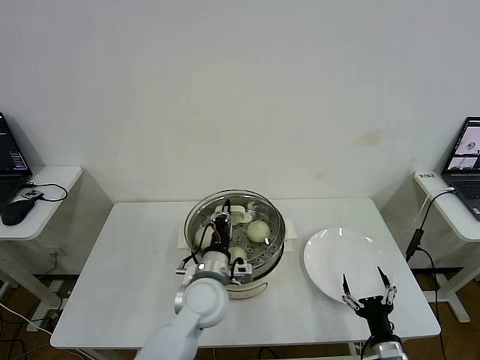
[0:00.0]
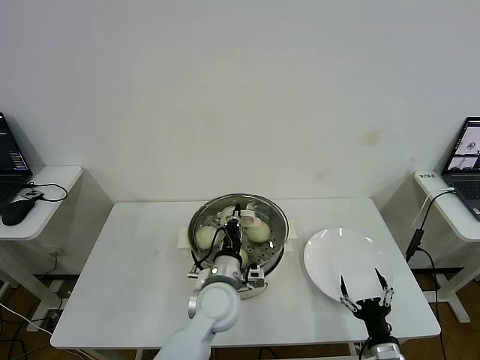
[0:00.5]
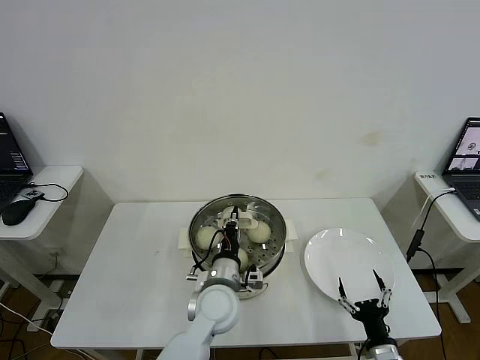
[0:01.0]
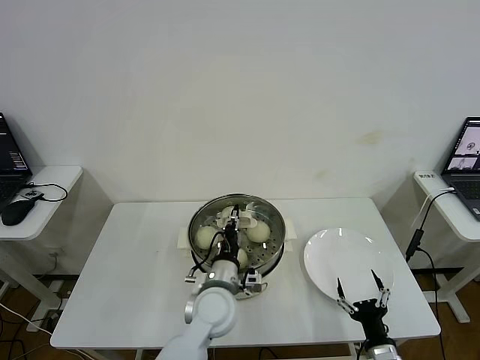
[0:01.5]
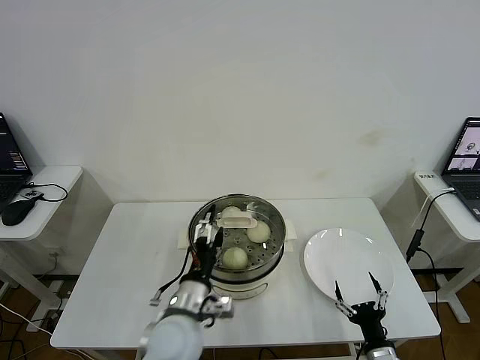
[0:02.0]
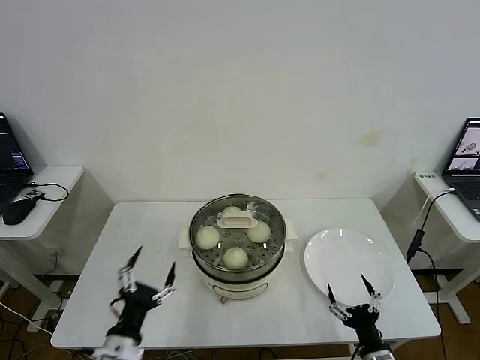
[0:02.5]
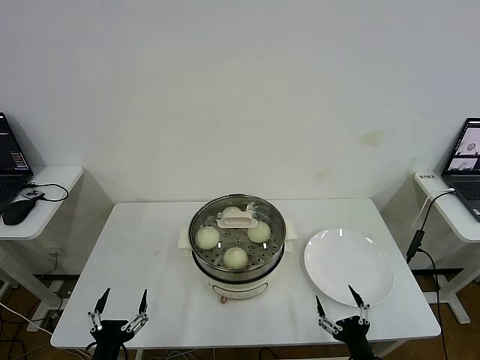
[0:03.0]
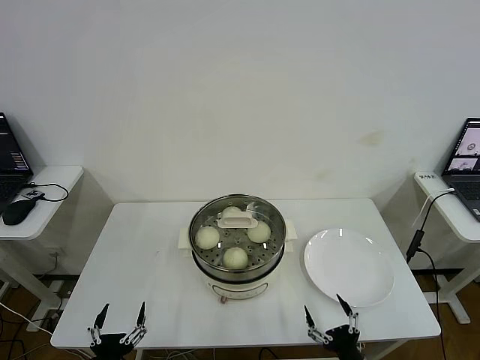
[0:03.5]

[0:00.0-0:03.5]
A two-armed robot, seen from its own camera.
0:00.0 to 0:02.0: The left gripper travels backward by approximately 5 cm, and opens its fingers.
0:02.0 to 0:03.5: The left gripper is displaced to the left, backward and downward by some 25 cm. The right gripper shifts by roughly 5 cm.
